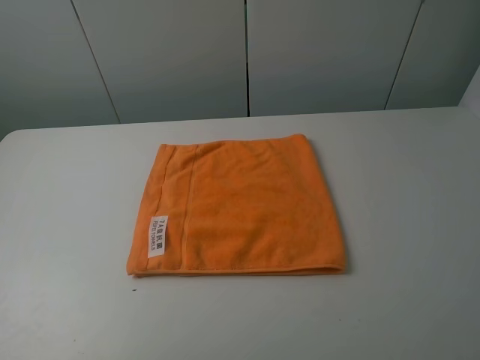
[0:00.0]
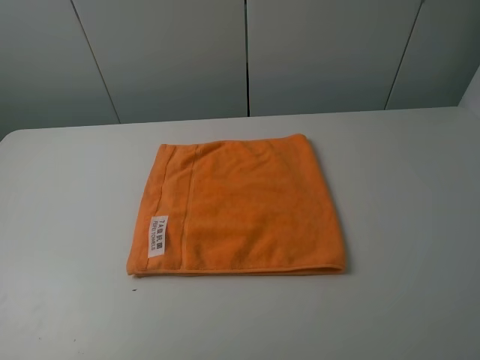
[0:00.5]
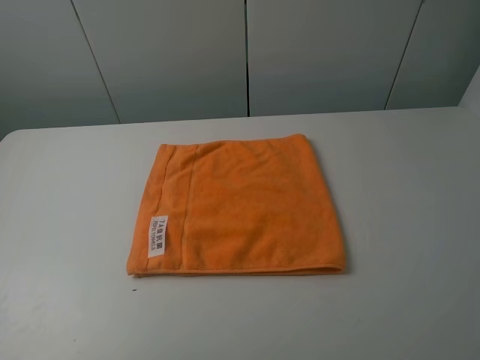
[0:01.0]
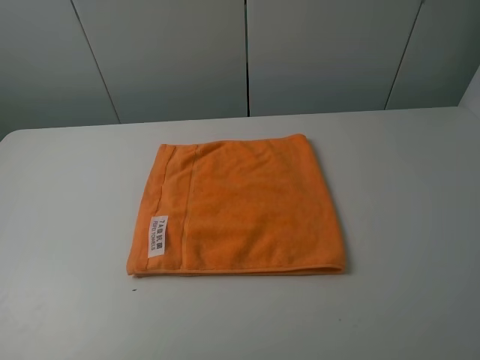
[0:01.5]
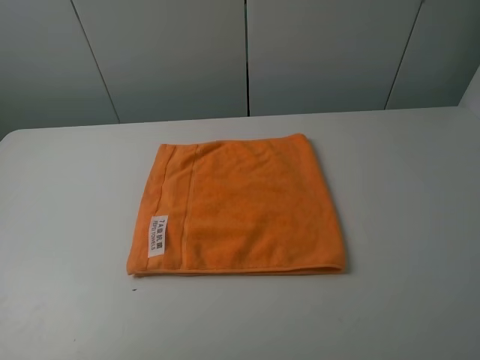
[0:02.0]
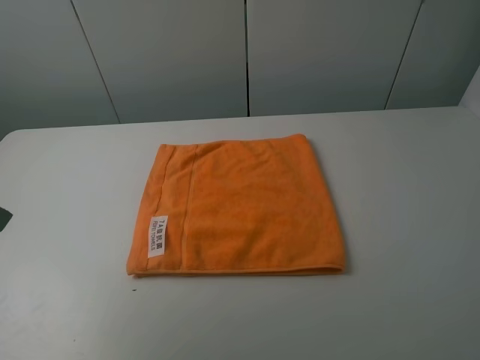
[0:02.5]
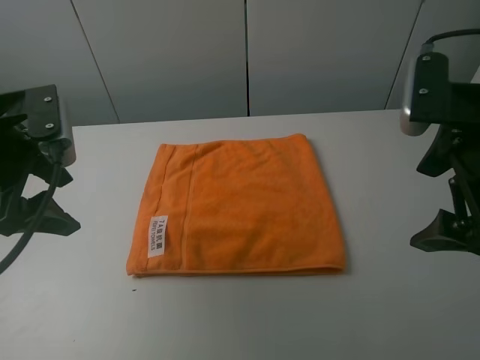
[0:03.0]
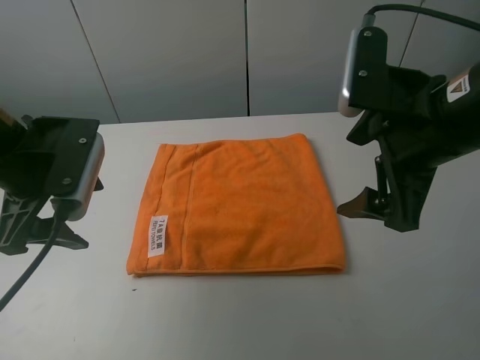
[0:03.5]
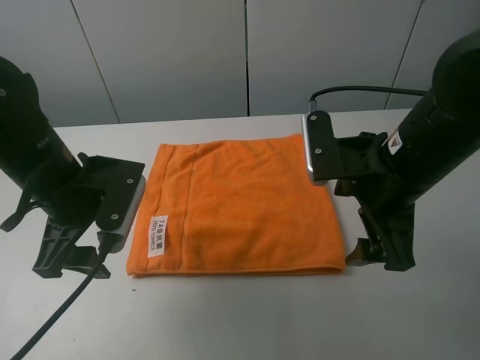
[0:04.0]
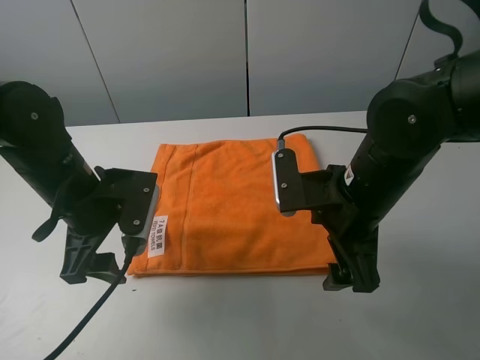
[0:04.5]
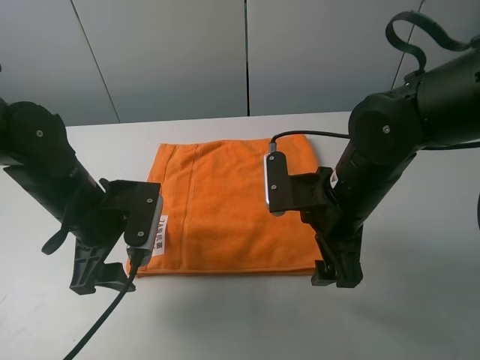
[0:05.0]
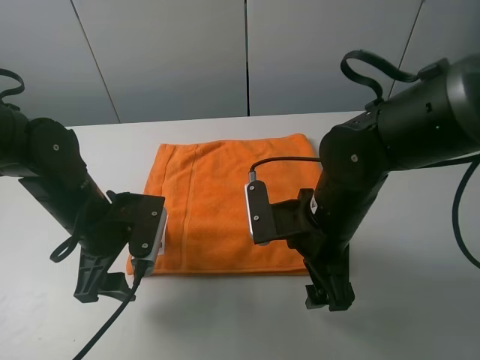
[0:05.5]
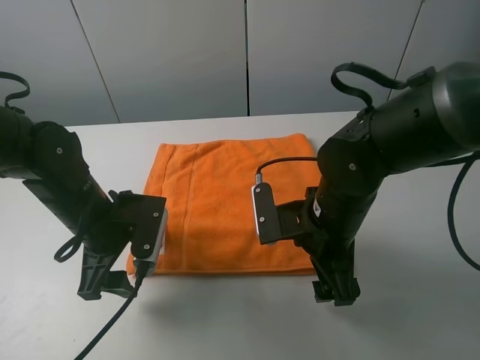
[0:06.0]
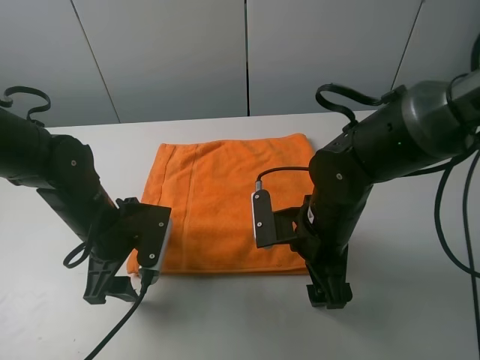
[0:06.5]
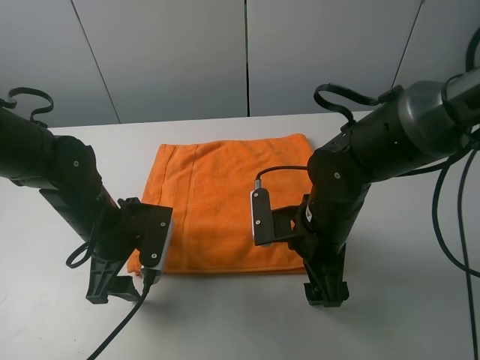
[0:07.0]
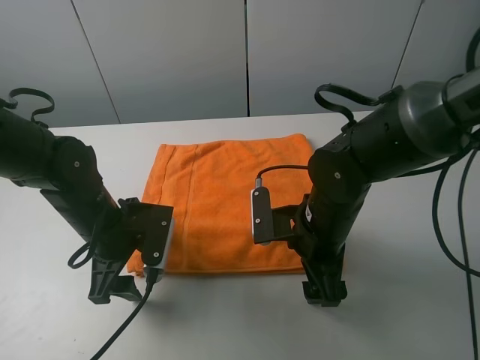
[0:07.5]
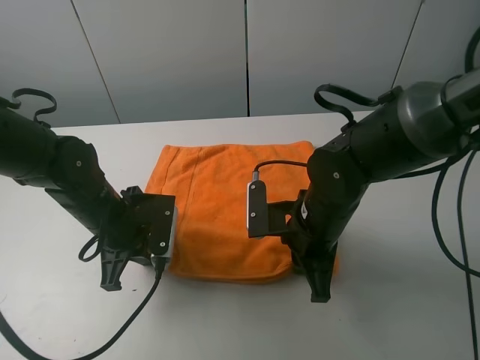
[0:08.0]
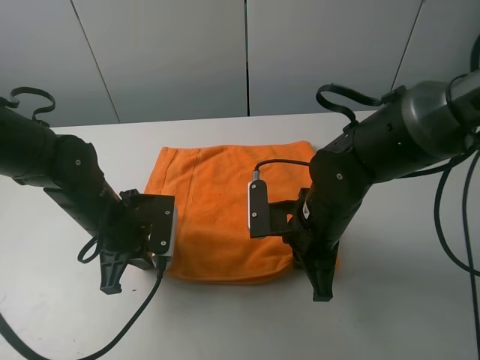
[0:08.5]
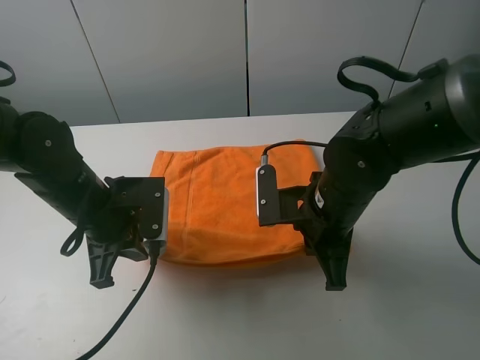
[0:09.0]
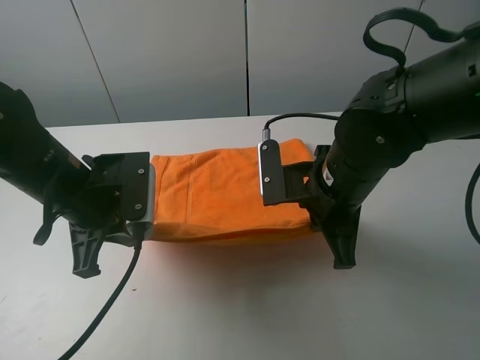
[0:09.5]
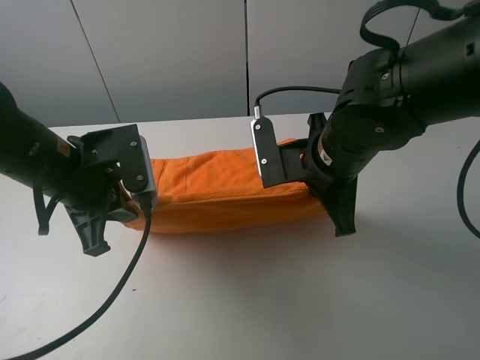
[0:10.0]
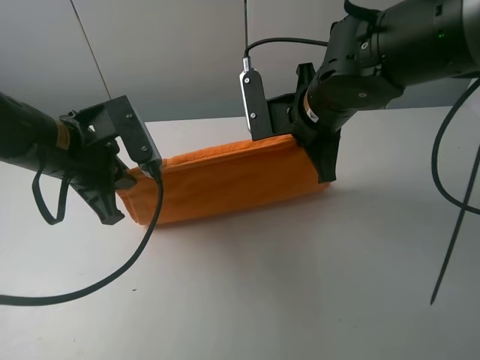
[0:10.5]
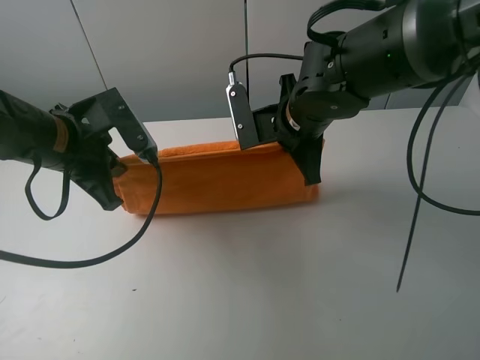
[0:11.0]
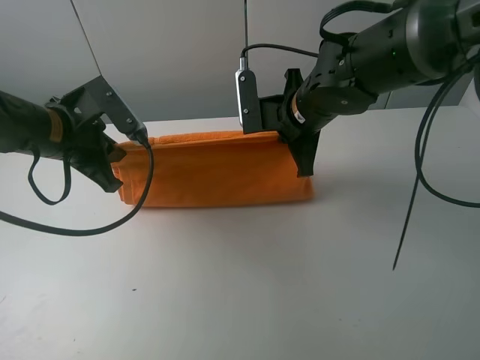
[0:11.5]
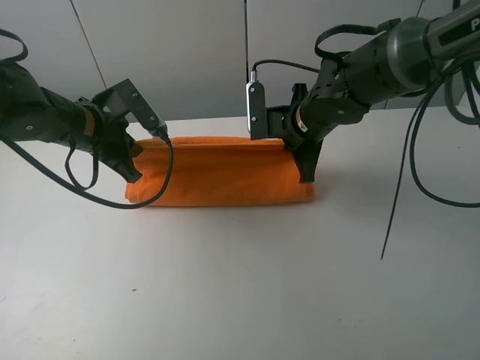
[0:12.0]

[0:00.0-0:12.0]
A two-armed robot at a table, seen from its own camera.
Task of the whole recording: fold the towels on the table.
Step, 0:00.0 to 0:08.0: Grasp the orange towel with the right gripper.
0:02.0 to 0:04.0: The right gripper moves forward, to the left and downward, some 25 cm, while the left gripper travels forward, to the right and downward by some 25 cm.
0:04.0 to 0:06.0: The two grippers go about 10 cm downward.
0:06.0 to 0:08.0: The right gripper closes up. Meanwhile the left gripper closes up.
0:08.0 to 0:10.0: Both grippers move upward, roughly 10 cm.
0:10.0 to 0:12.0: Both grippers travel together forward, about 10 cm.

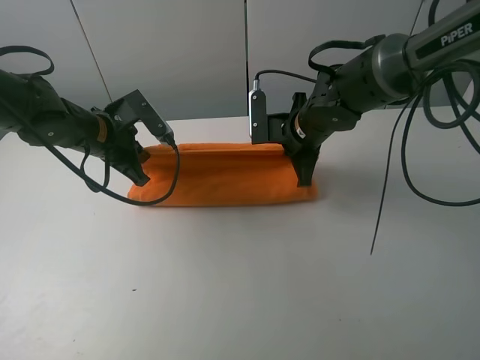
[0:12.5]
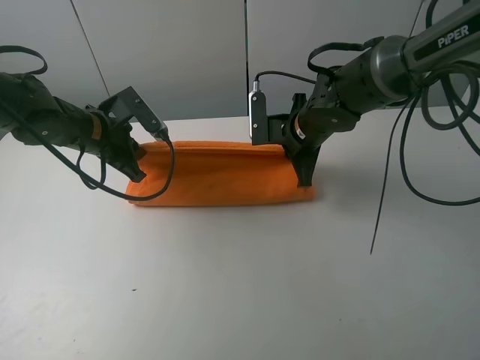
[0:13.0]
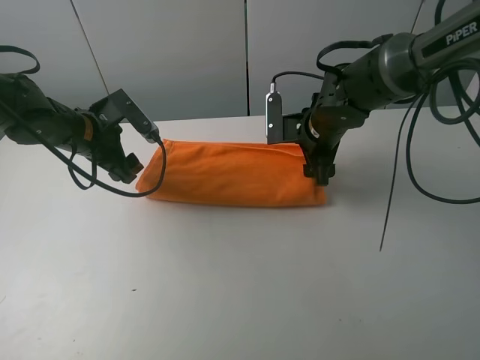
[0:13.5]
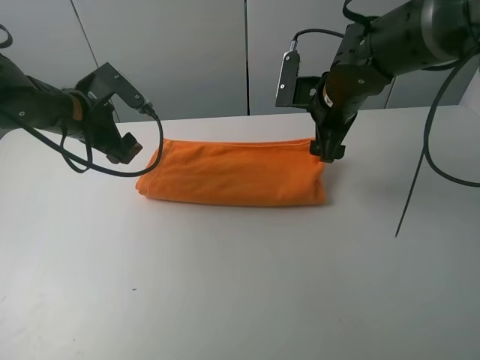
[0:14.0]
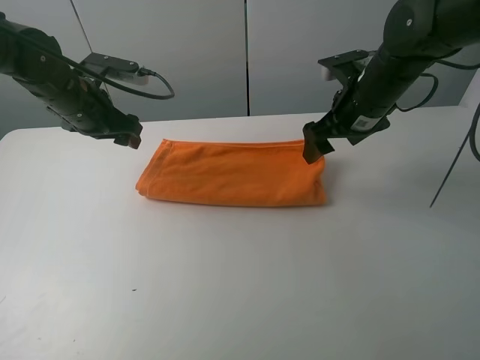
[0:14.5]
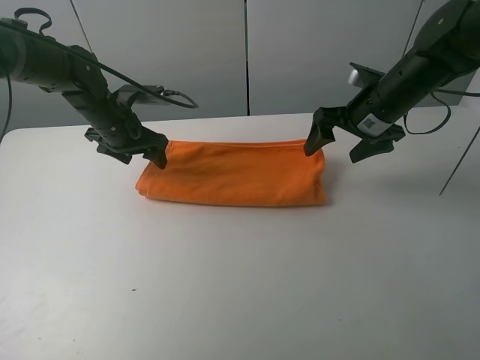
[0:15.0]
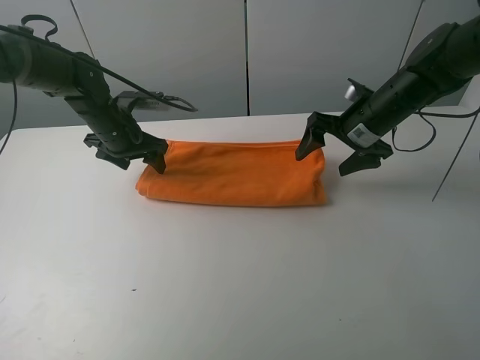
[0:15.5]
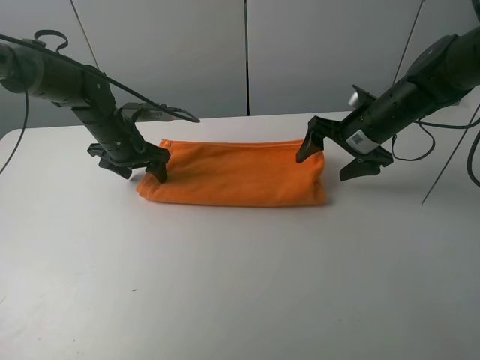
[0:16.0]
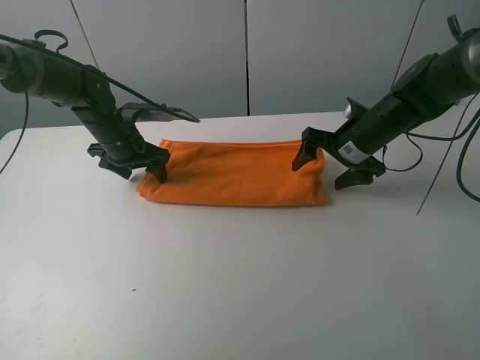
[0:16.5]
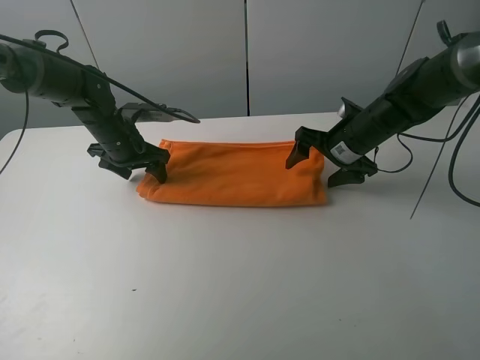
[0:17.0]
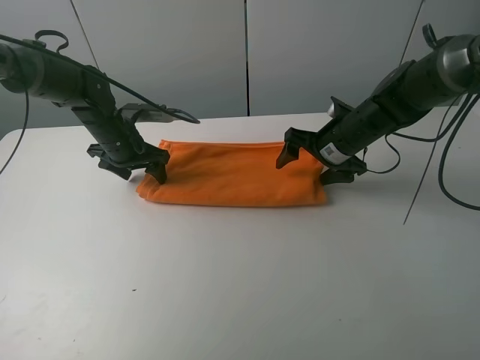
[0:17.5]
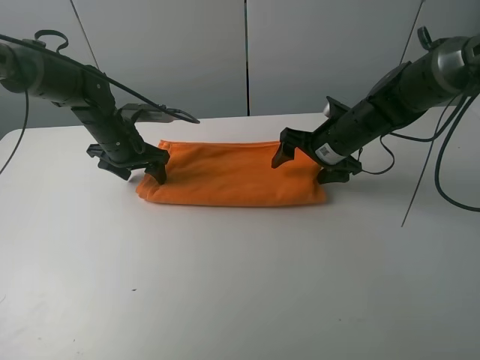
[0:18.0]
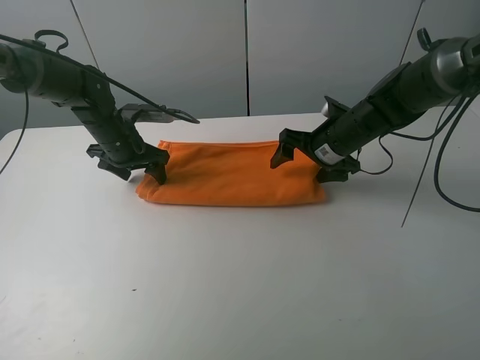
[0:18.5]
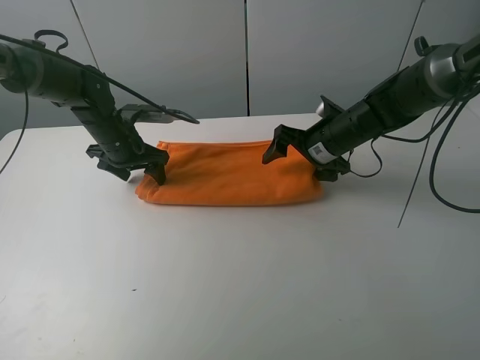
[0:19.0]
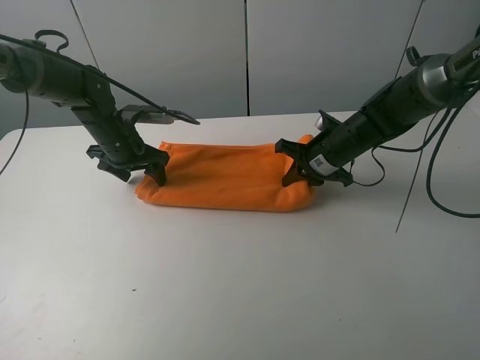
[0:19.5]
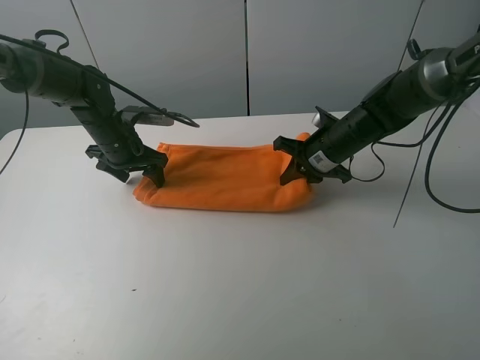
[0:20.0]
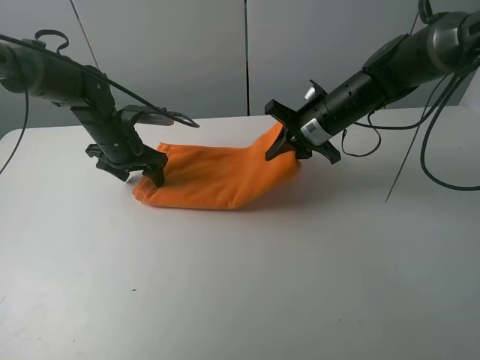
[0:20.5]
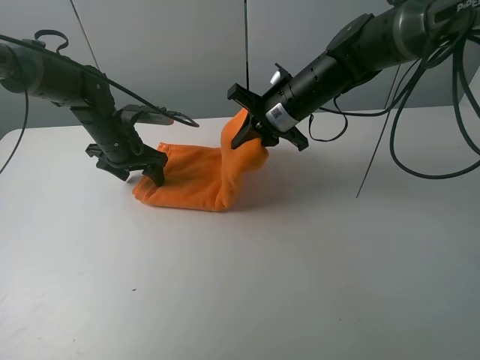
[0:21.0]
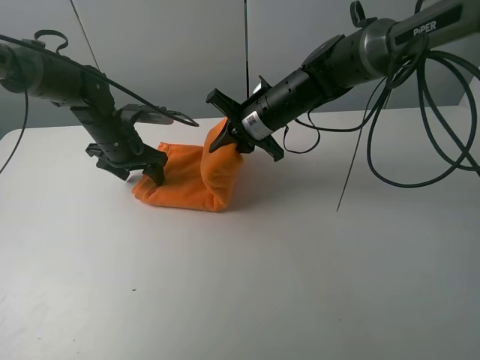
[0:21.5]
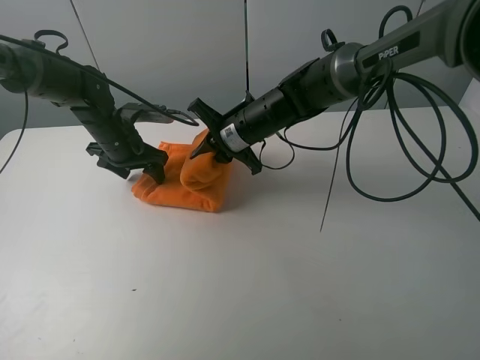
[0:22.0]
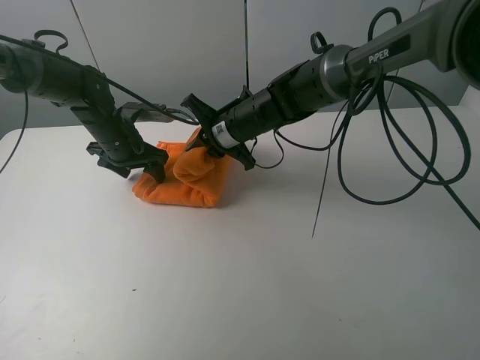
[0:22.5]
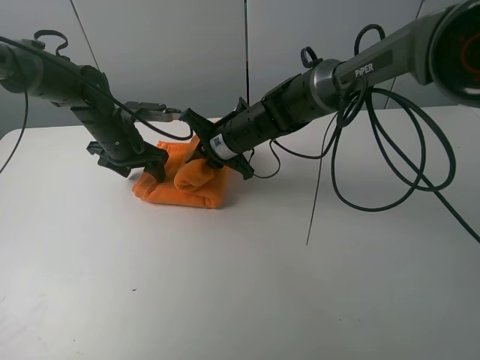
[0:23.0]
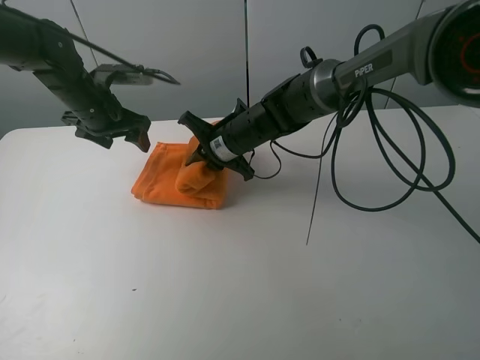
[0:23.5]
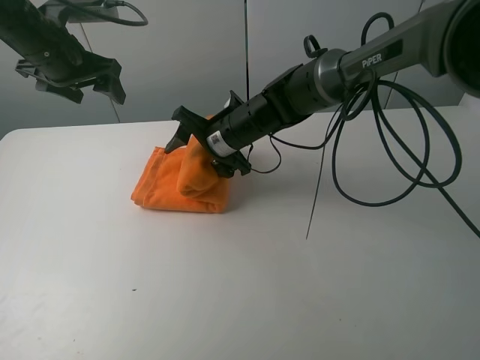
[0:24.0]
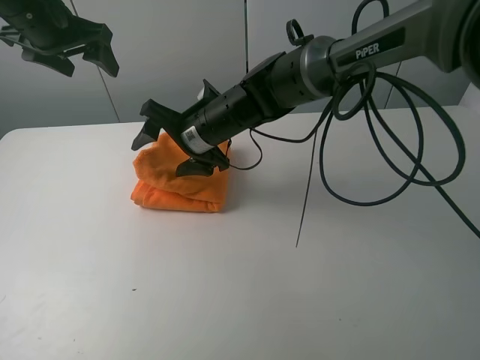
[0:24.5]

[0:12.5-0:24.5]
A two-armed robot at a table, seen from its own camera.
Task of the whole recording: fold the towels on the table.
Step, 0:14.0 to 0:15.5: Press on the orange towel with the left gripper.
Step, 0:16.0 to 0:24.5: Fold the orange towel from right to left with right gripper.
0:12.5 to 0:14.5: The right gripper goes approximately 10 cm to the right and upward, and opens up. Meanwhile the left gripper shifts by some 5 cm, and opens its fingers.
0:14.5 to 0:16.5: The grippers both shift downward by some 10 cm.
0:16.5 to 0:18.5: There are only small adjustments of the grippers.
0:18.5 to 0:20.5: The right gripper closes up.
0:20.5 to 0:22.5: The right gripper is displaced to the left by about 15 cm.
0:22.5 to 0:24.5: The left gripper heads upward, covering some 20 cm, while the right gripper ends up some 5 cm from where it was, and opens up.

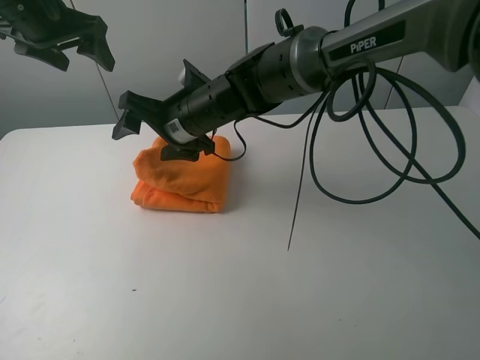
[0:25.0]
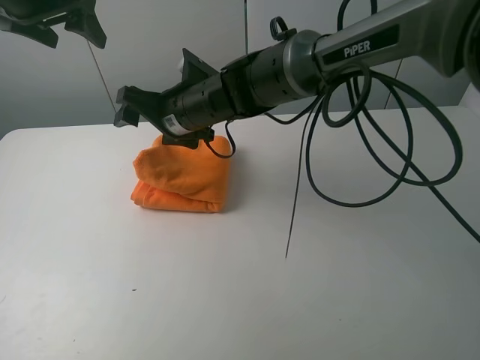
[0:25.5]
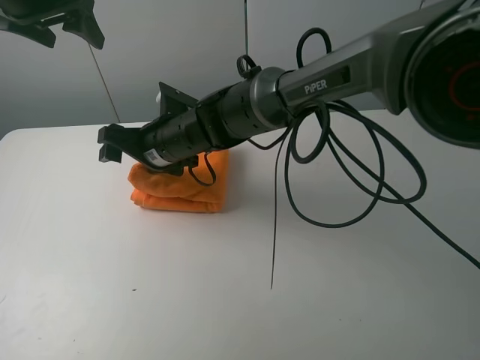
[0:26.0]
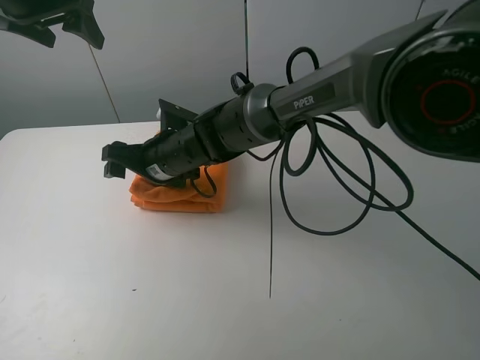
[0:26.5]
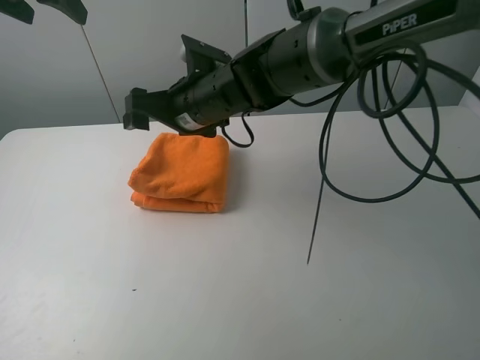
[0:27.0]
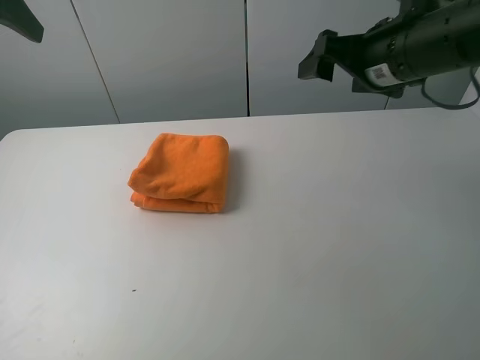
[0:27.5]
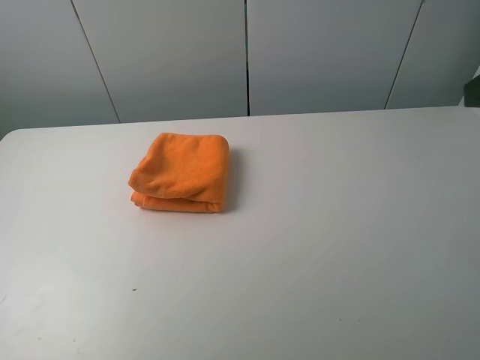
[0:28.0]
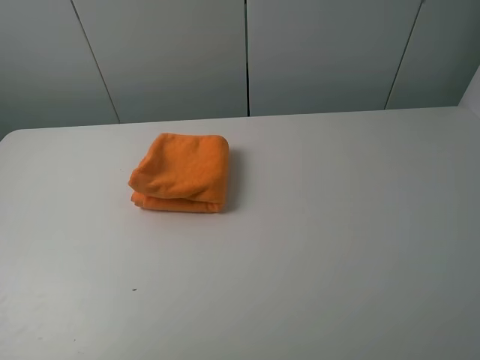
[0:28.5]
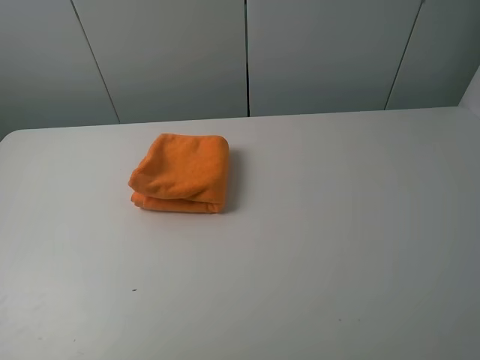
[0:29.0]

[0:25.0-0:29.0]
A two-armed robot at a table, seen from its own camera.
Task of the whole recording: fold the towels on the table.
Step, 0:25.0 to 0:26.5: Arrange the orange towel with the right hand.
0:25.0 to 0:27.0: The left gripper goes roughly 5 cm upward.
0:27.0 to 0:29.0: The left gripper moves backward, approximately 35 cm. Meanwhile the right gripper goes some 50 cm backward and to the right.
